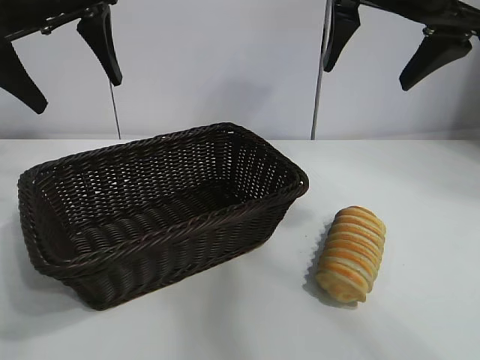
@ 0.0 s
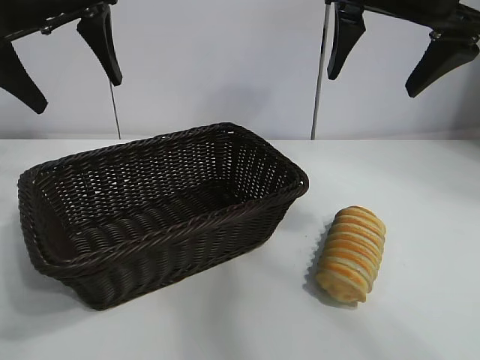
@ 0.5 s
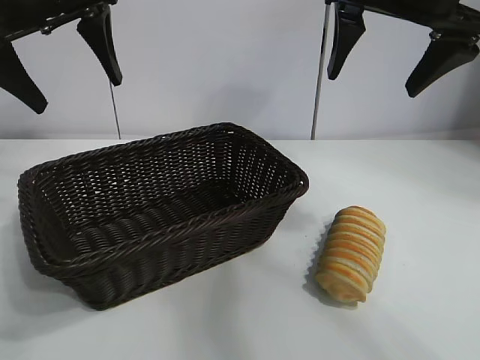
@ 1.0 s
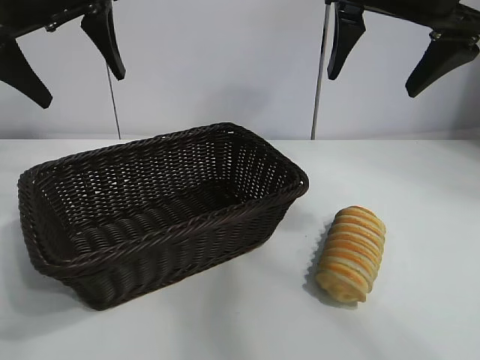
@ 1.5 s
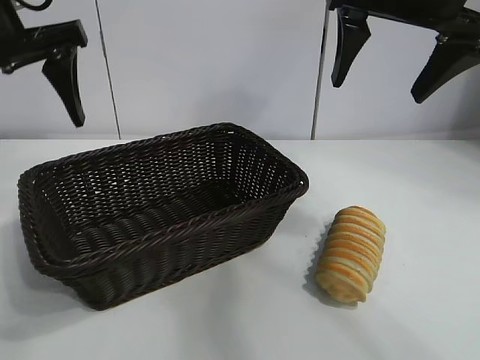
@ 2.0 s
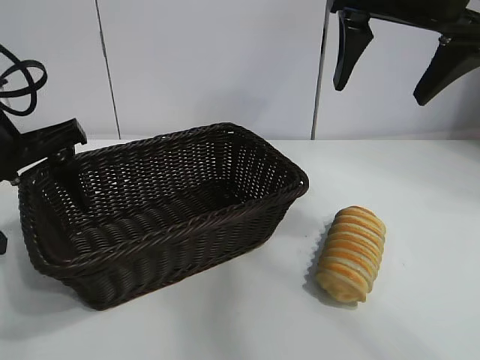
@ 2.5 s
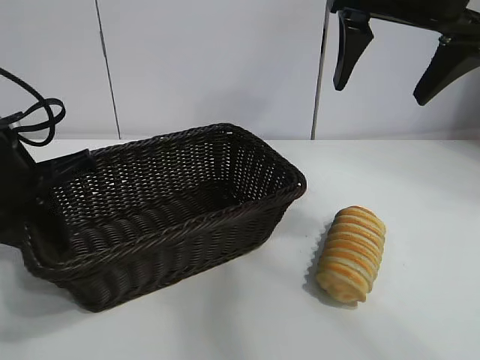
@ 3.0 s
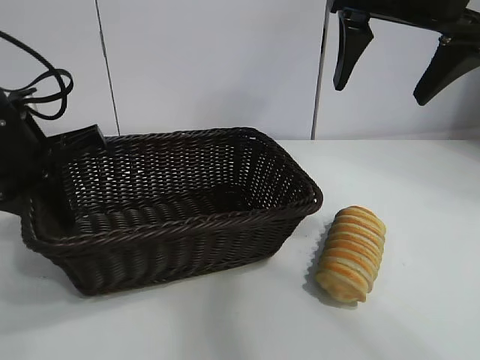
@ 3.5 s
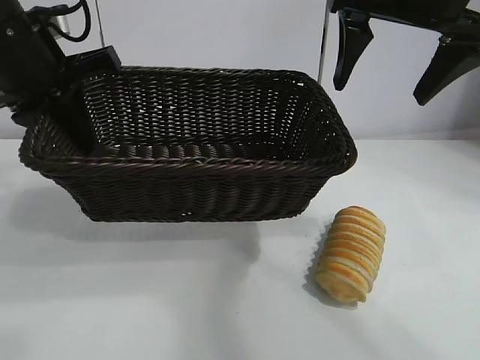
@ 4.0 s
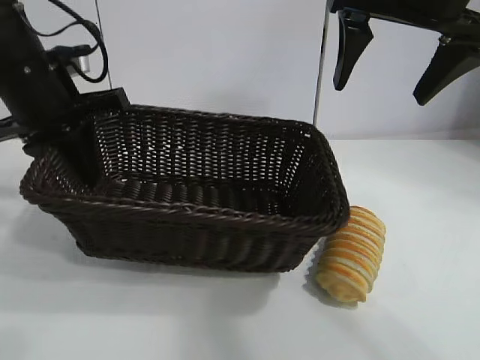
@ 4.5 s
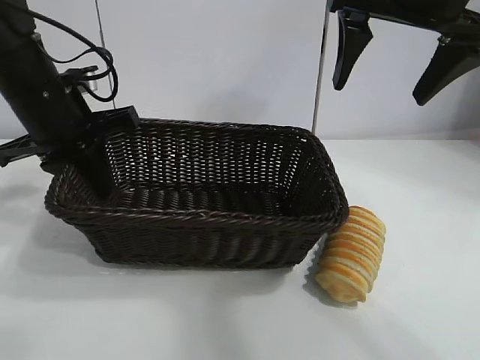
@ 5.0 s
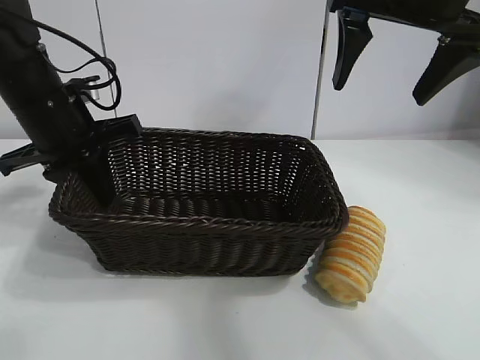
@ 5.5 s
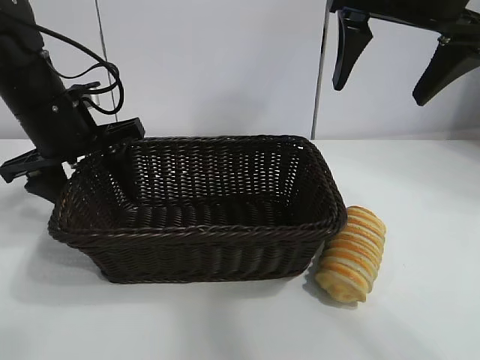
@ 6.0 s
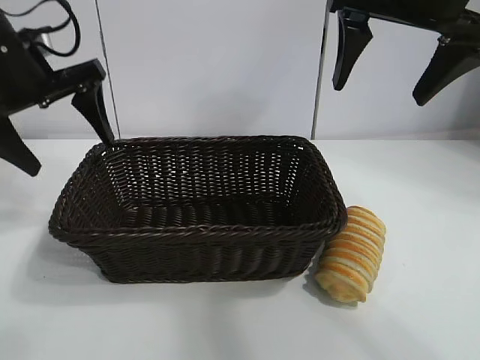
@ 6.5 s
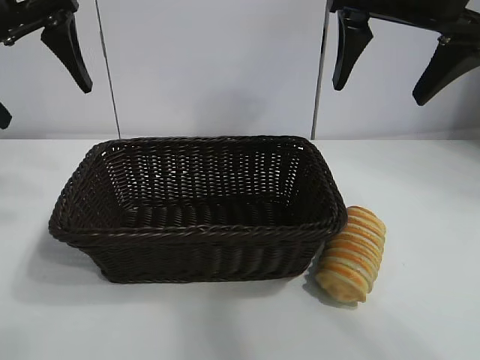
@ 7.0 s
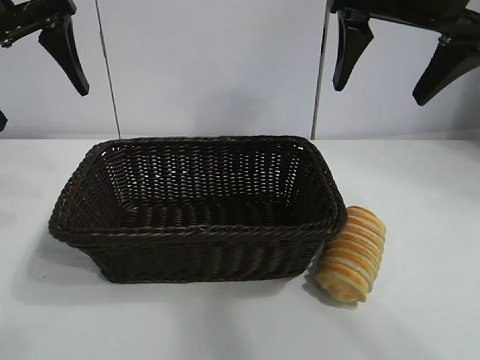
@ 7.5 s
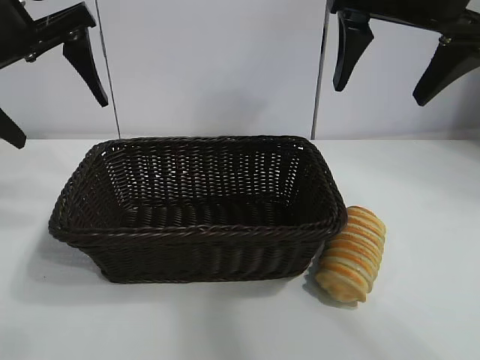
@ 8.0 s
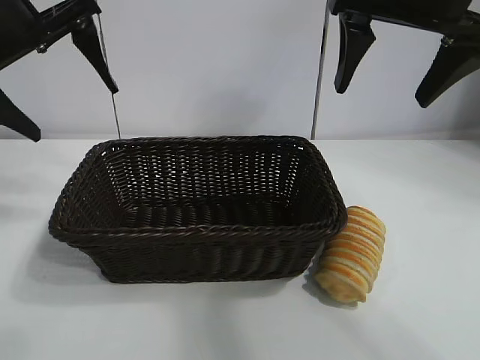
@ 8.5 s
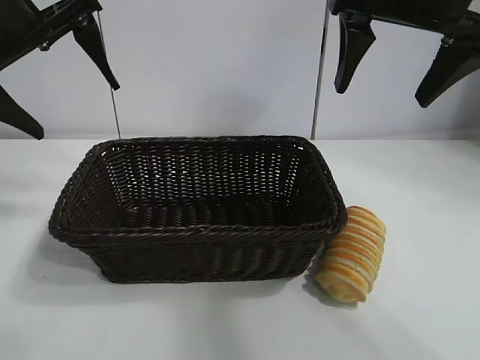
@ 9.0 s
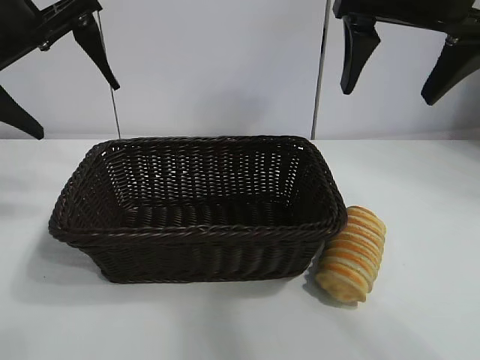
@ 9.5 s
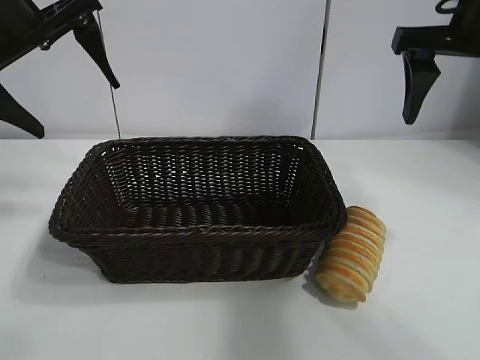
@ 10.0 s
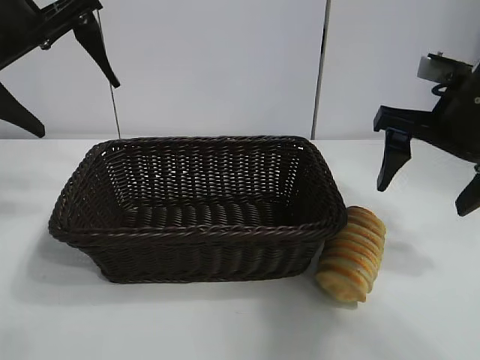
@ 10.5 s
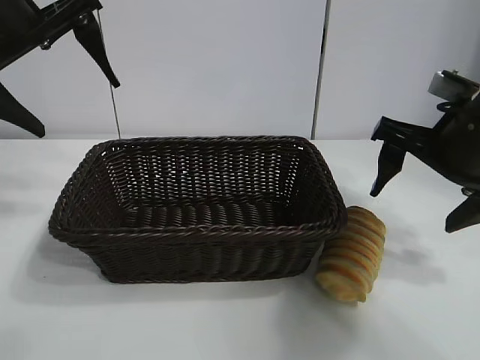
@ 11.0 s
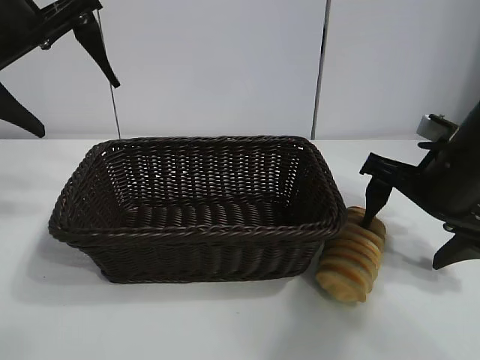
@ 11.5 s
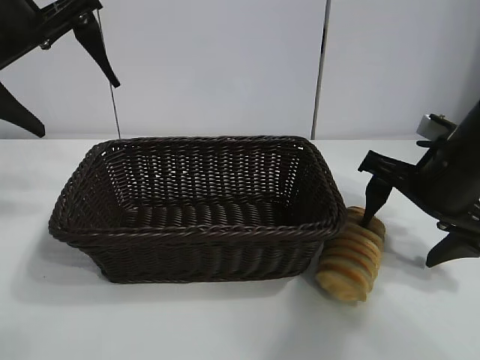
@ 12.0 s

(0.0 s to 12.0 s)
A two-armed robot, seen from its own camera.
Task of the whole recording: pick up the long bread and put it into the basket.
Step, 1.5 s - 3.0 s: Grasp the basket with the left gripper.
Step, 3.5 s - 6.0 s: Place the basket in the center of the table with the left gripper.

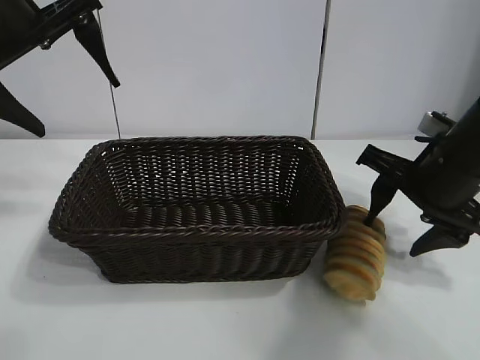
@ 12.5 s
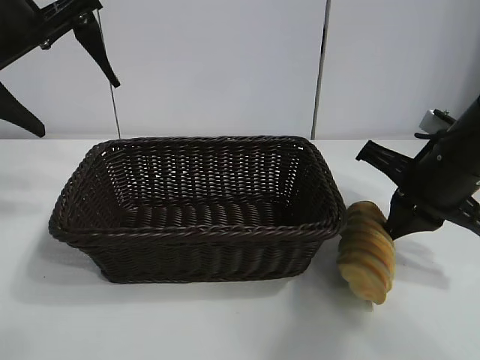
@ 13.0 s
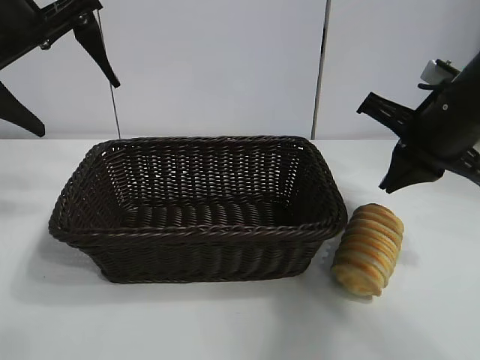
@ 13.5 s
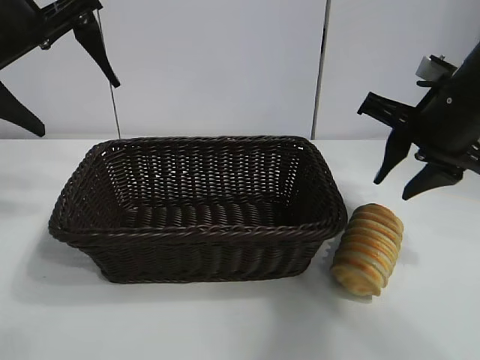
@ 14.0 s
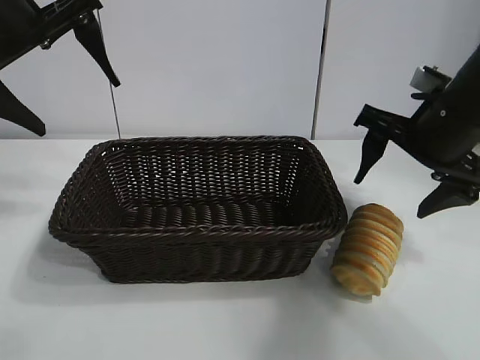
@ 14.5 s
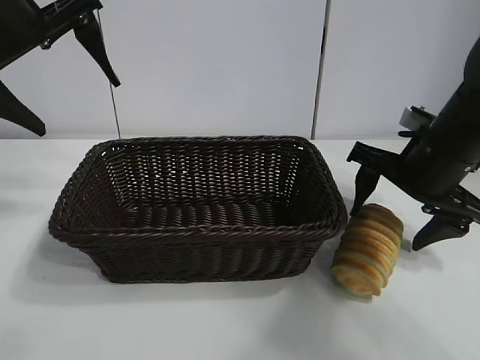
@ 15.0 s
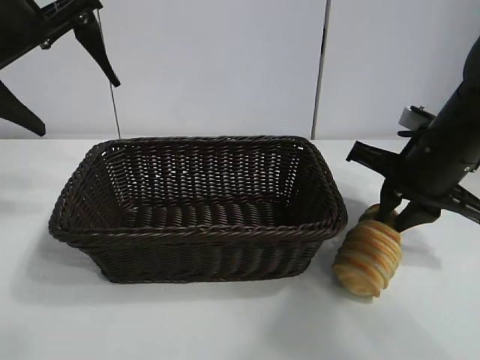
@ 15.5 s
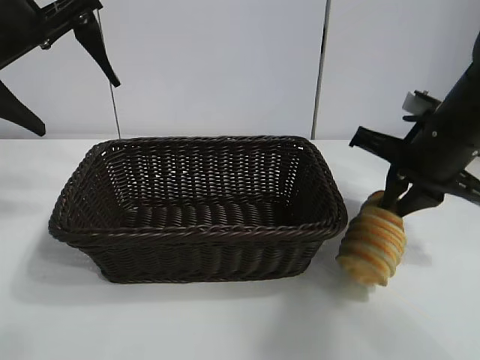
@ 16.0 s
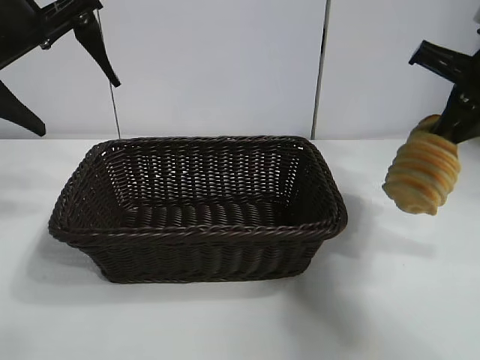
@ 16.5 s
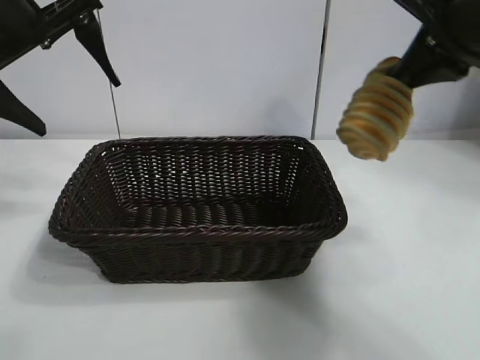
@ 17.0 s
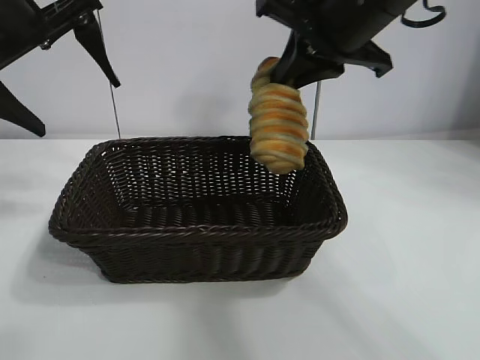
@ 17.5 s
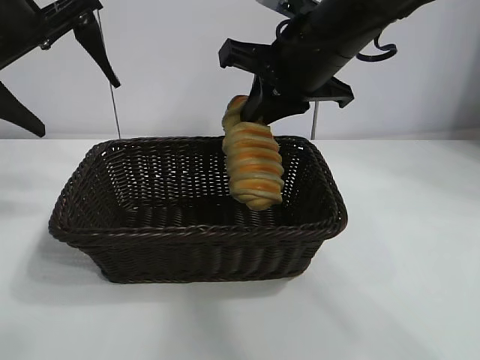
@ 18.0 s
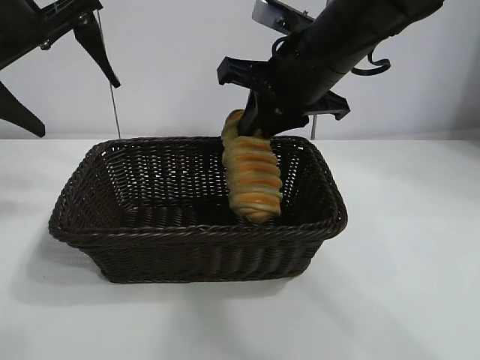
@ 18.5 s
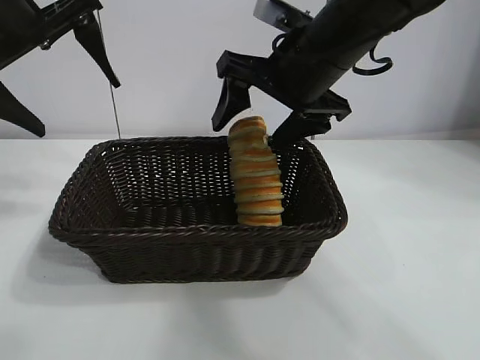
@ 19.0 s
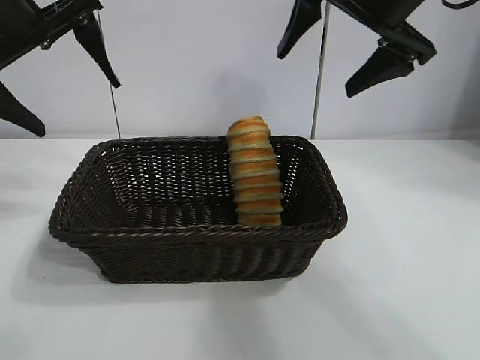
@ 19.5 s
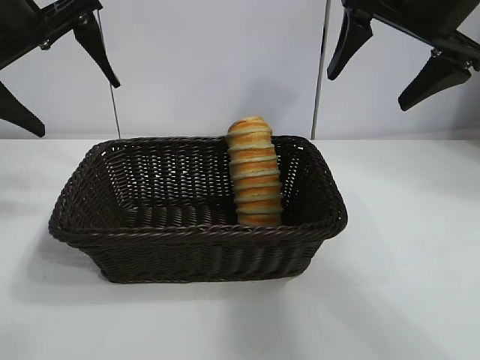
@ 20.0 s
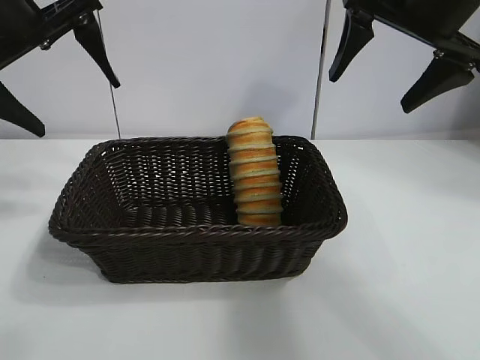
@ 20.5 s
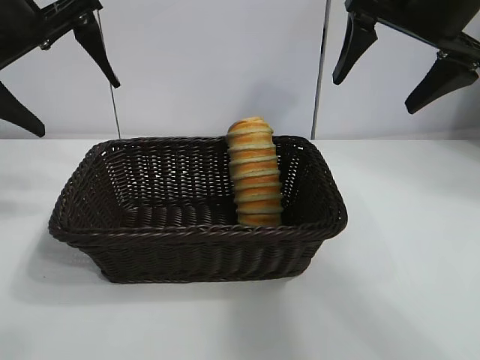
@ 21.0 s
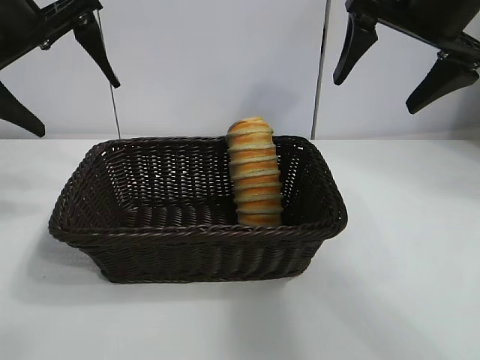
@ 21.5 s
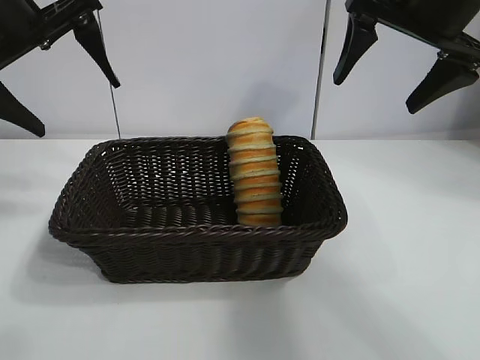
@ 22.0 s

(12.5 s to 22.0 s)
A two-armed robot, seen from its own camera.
Task of the whole recording: pick up the long bread and put it into the basket.
Step, 12.5 s - 15.5 s: Grasp the long bread with right gripper.
Step, 16.0 s - 19.0 s: Place the long bread in the basket with right gripper.

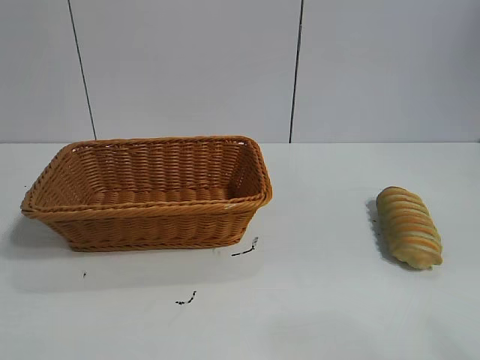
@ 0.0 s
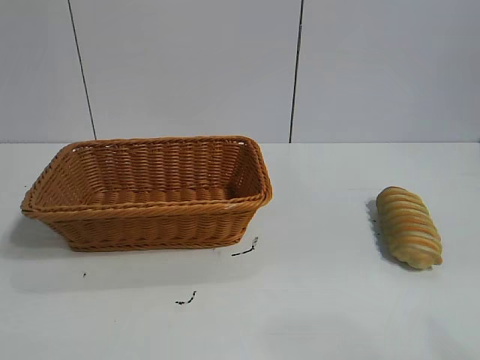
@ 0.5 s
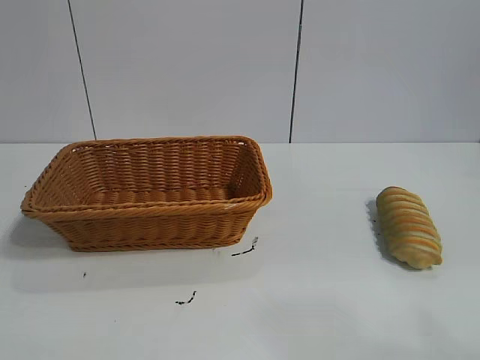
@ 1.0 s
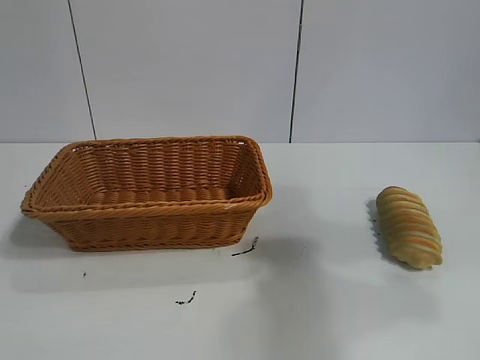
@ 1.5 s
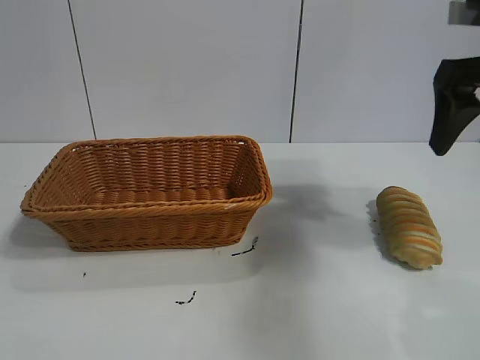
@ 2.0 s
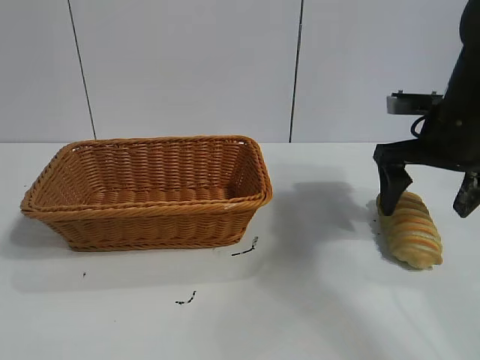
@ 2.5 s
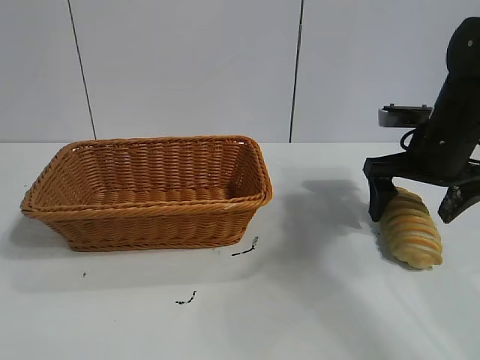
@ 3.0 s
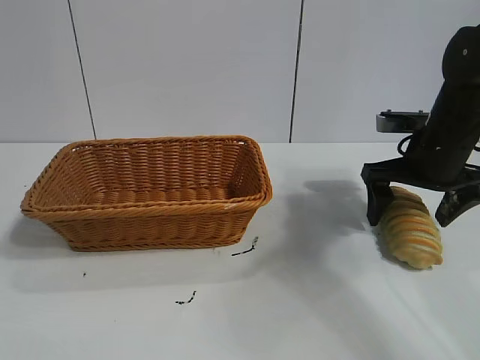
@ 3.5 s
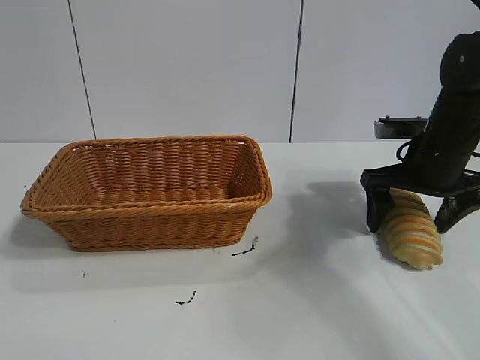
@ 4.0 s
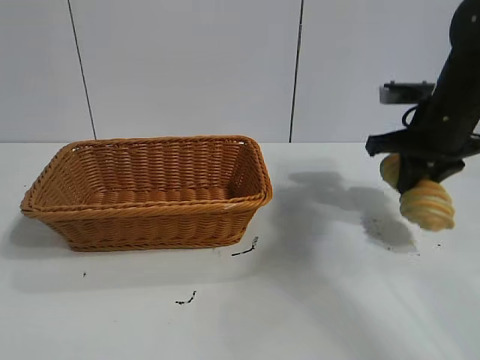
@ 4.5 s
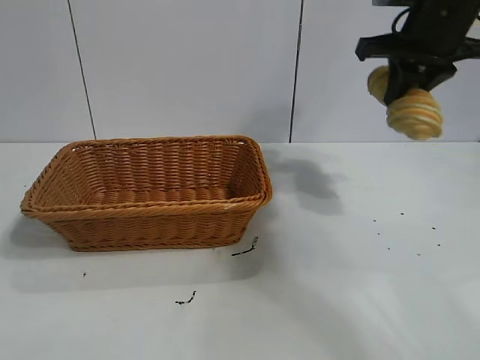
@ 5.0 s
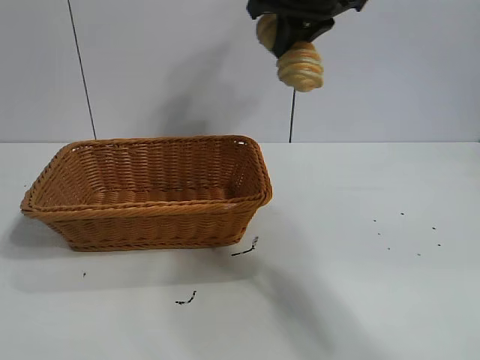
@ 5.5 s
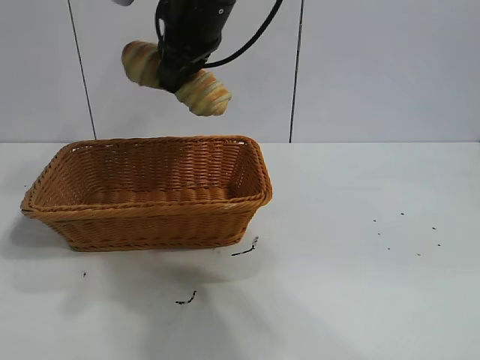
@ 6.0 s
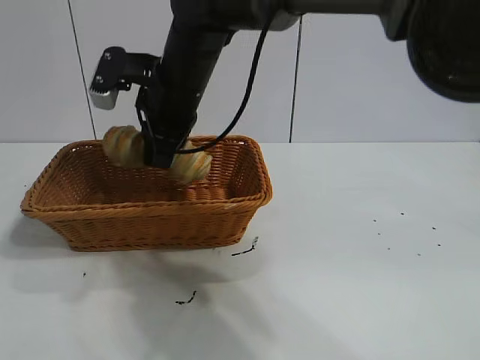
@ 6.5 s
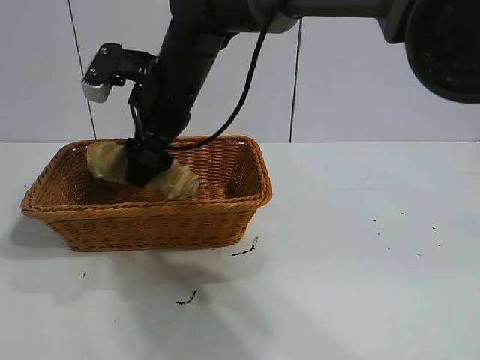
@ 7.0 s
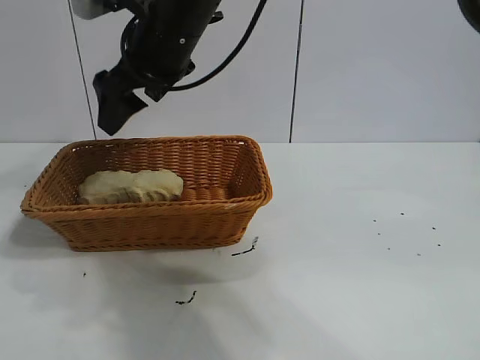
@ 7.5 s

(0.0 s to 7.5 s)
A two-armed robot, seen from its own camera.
Task of the whole recording: pick up the long bread and put it into the basket.
Step, 2.0 s - 4.0 s: Grasp the long bread with right gripper.
